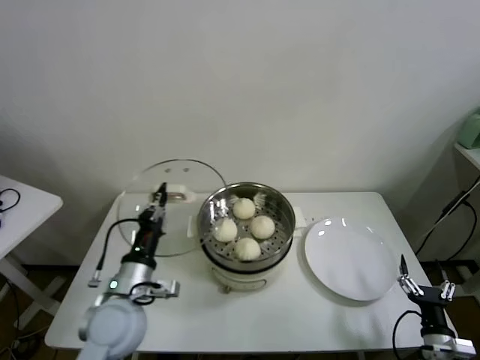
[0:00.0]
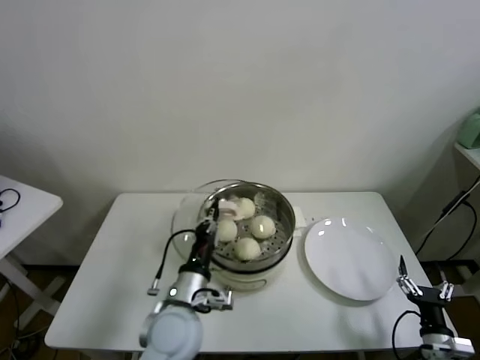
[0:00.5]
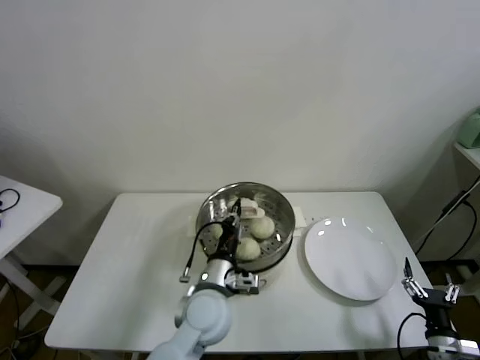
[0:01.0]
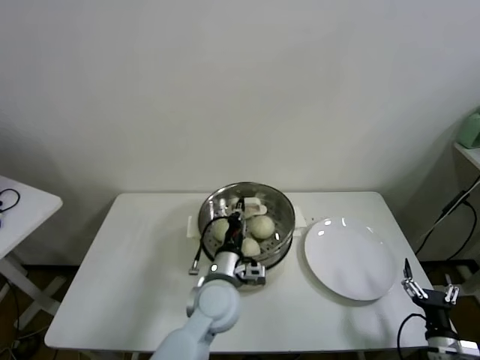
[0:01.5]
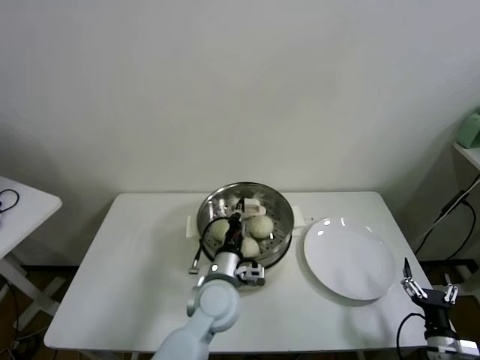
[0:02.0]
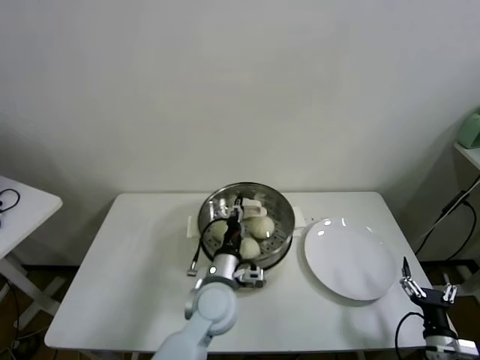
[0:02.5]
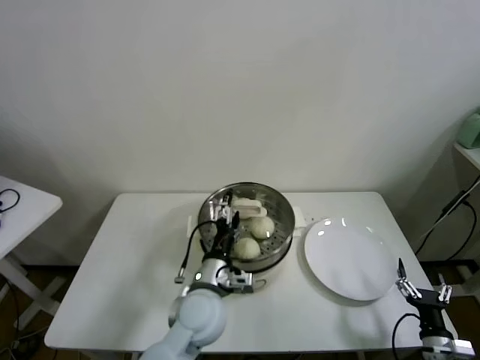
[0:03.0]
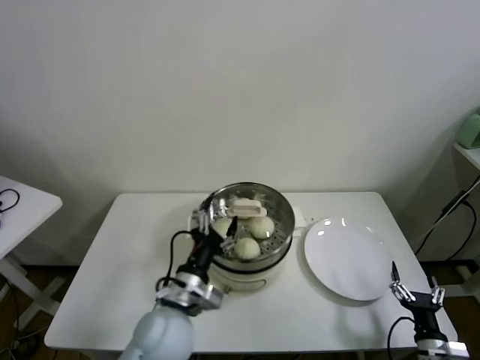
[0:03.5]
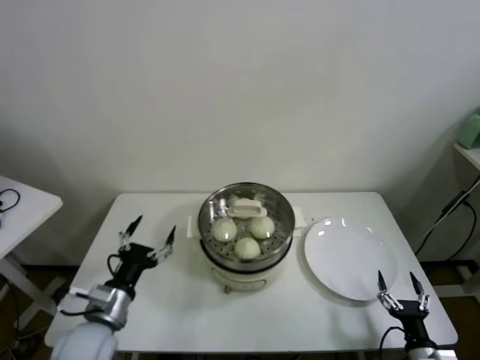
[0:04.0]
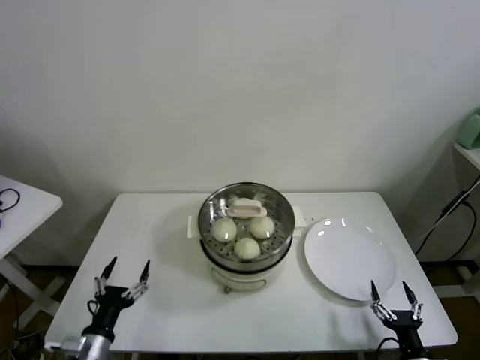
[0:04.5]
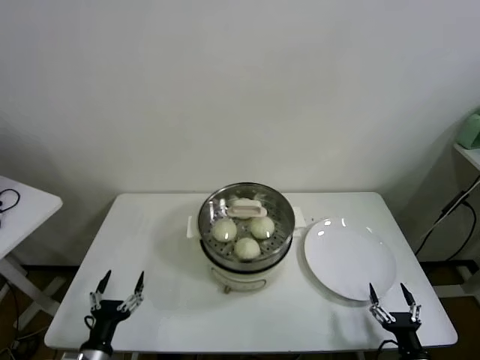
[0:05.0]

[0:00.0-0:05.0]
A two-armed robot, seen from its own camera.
Task of the whole recording: take steamed baozi put them in steamer.
Step, 0:00.0 to 0:02.5: Place the pot lid on the steamer with left gripper.
0:00.0 to 0:02.5: The left gripper heads to the right, covering some 20 cm, and opens its fingers.
0:02.5 to 0:05.0: The right gripper shifts by about 5 cm; the left gripper travels to the left and backward by roughly 30 cm, and opens its fingers.
